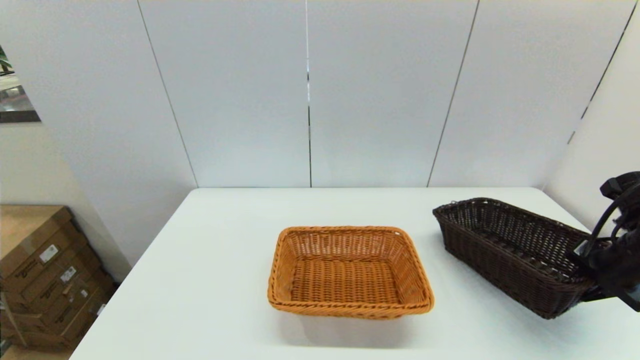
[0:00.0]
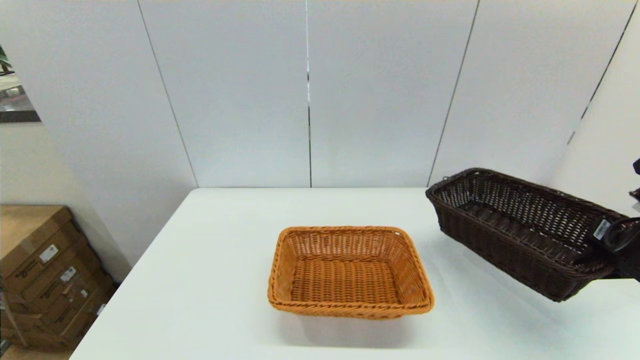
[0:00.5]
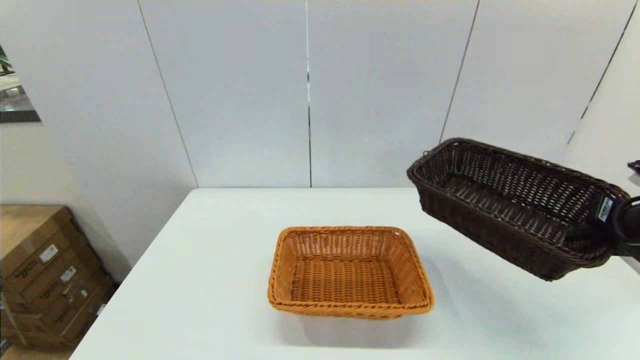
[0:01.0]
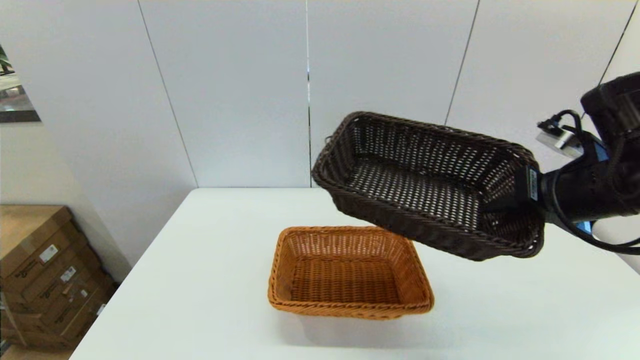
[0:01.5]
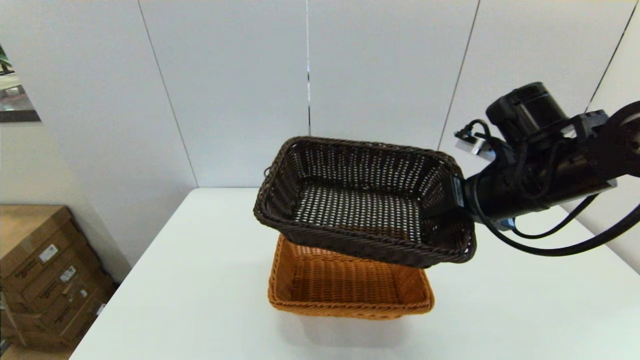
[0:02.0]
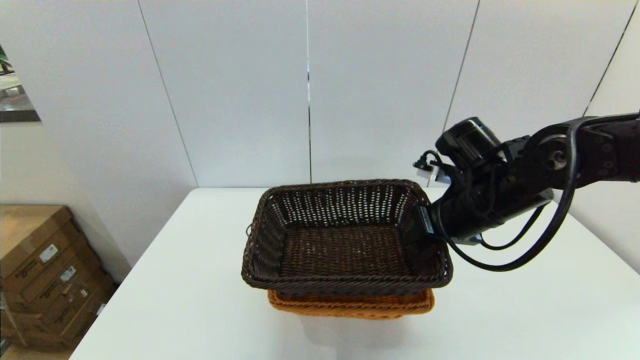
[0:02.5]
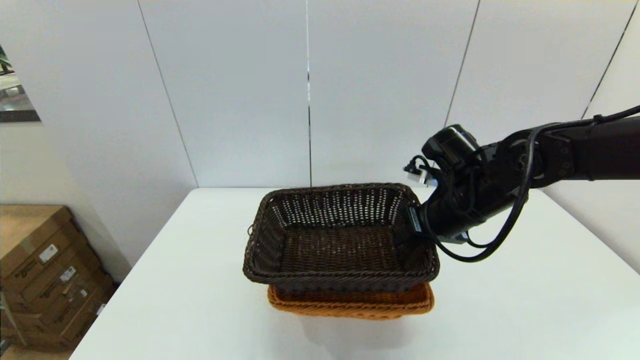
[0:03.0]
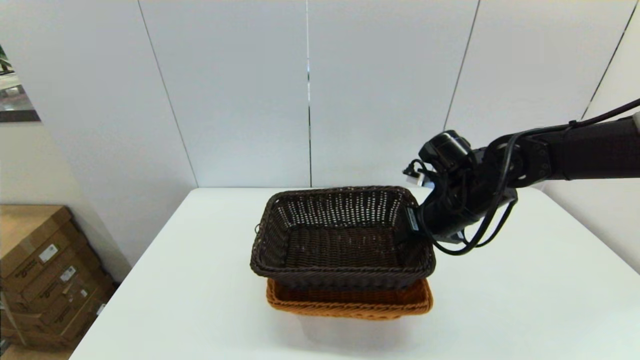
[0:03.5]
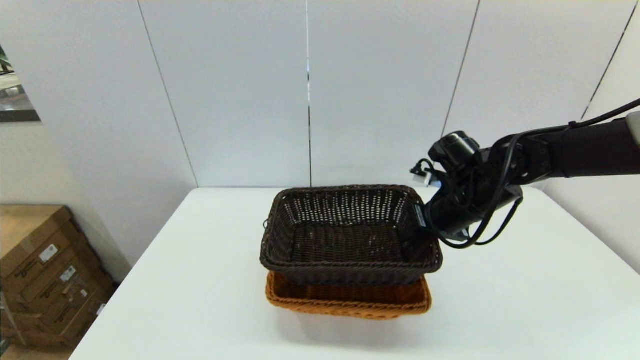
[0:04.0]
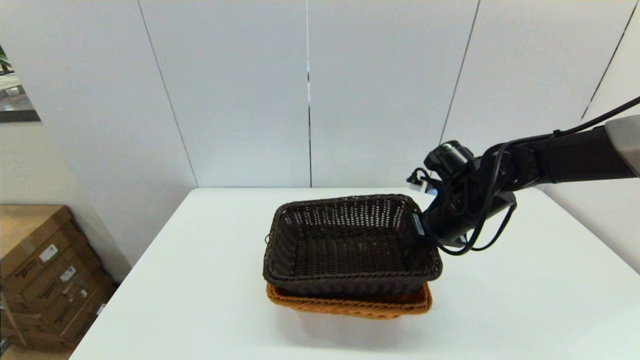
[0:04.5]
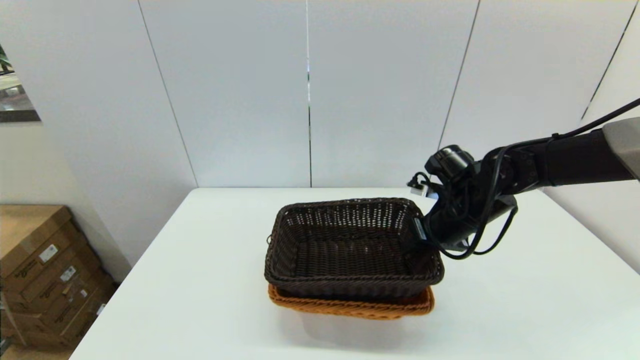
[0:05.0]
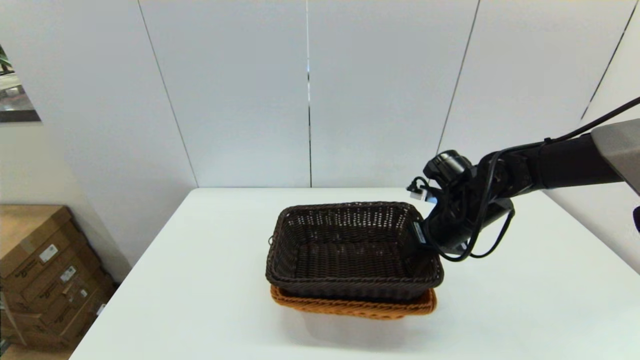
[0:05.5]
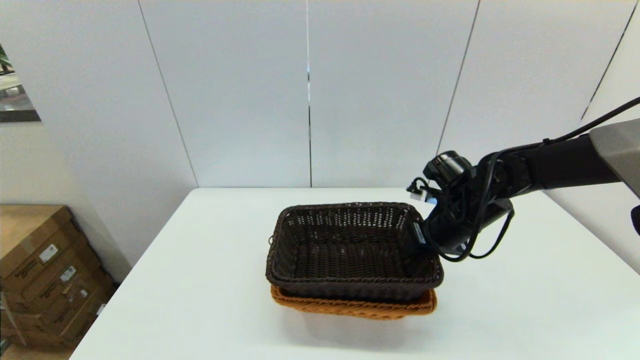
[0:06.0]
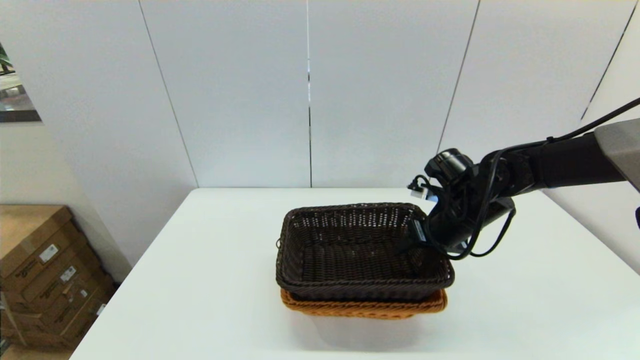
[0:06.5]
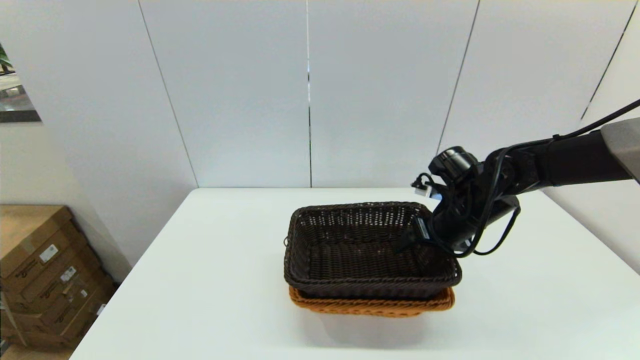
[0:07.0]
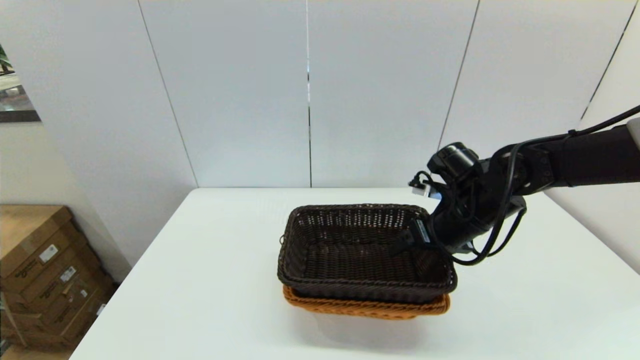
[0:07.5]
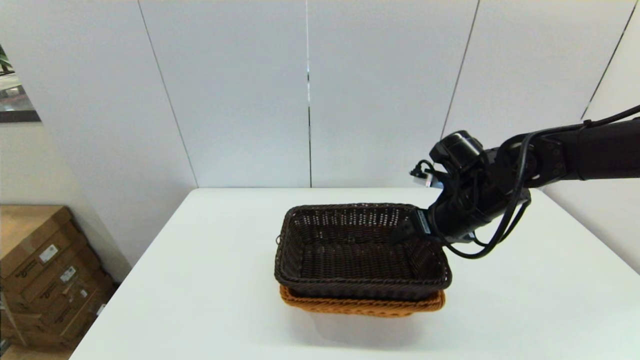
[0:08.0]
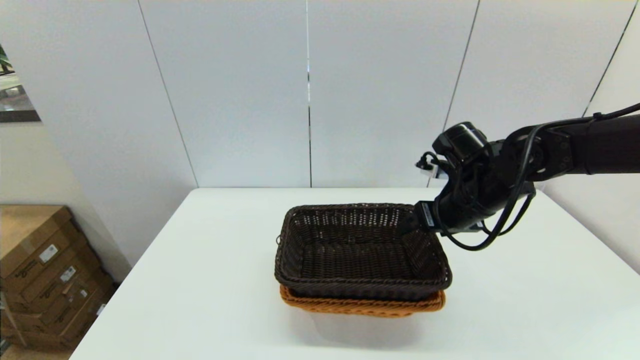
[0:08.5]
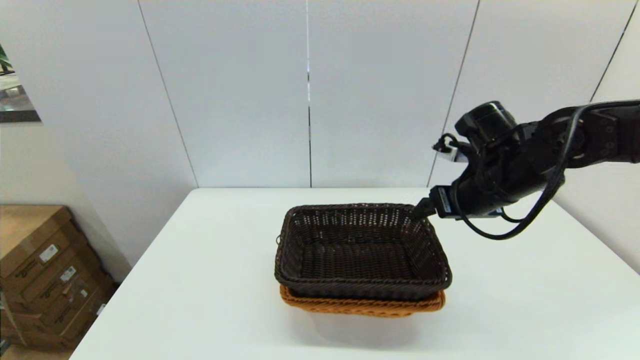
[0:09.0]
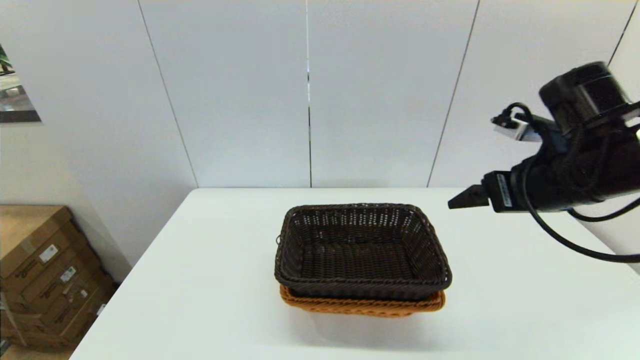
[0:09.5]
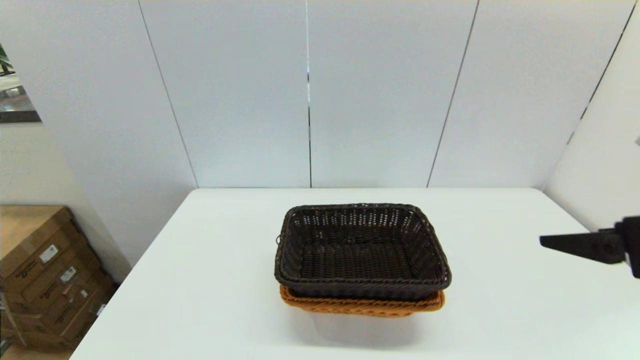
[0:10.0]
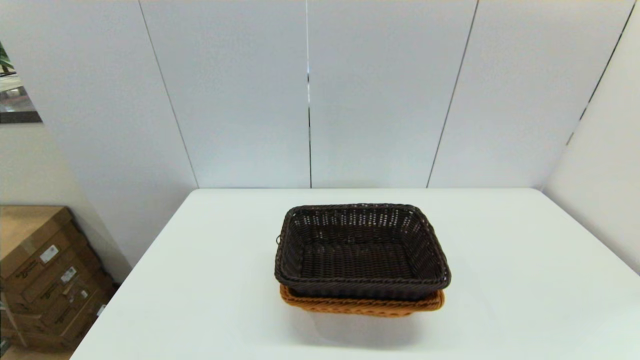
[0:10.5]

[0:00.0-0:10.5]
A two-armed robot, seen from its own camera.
Task of the whole recording: stack a basket on top of another basket.
Step, 0:00.5 to 0:08.5: Place the dark basket into the light color basket with the right gripper.
0:00.0 to 0:02.0: The right gripper is displaced to the left and upward by some 20 cm.
0:02.0 to 0:04.0: The right gripper moves downward and forward, roughly 10 cm.
0:04.0 to 0:06.5: The right gripper opens.
0:06.5 to 0:08.5: The right gripper shifts by about 5 cm, and opens.
0:08.5 to 0:10.5: The right gripper travels backward by about 30 cm.

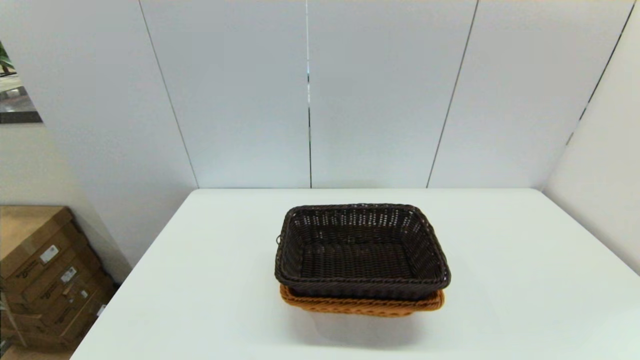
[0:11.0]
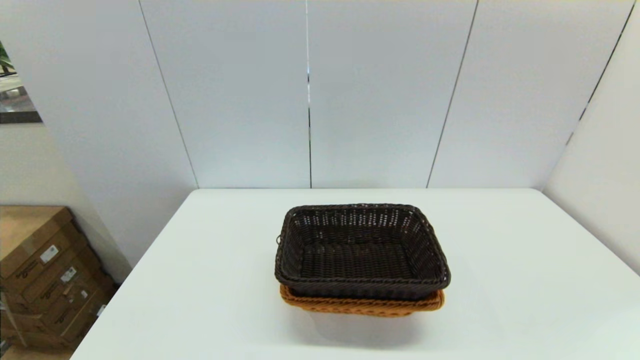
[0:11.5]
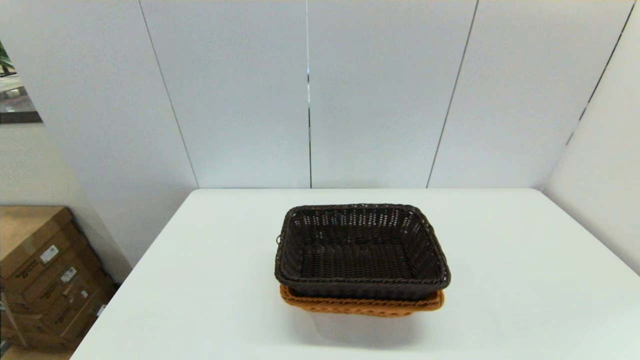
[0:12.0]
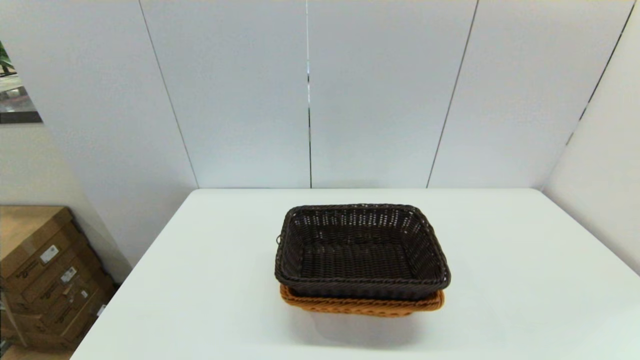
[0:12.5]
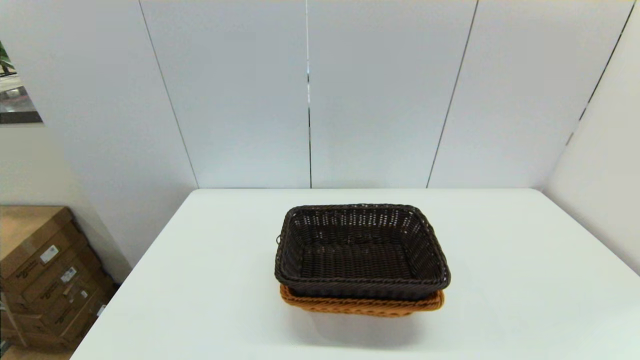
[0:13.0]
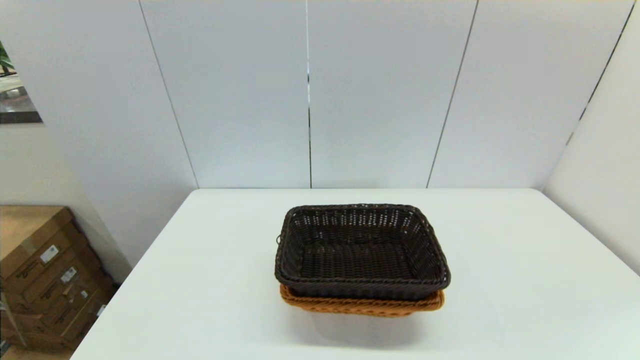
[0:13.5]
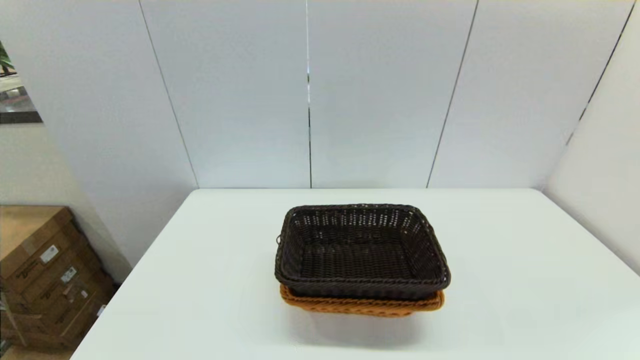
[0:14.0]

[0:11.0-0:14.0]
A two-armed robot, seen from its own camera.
Task of the whole recording: stack a basket on top of another basket.
0:12.5 to 0:14.0: Neither gripper changes place.

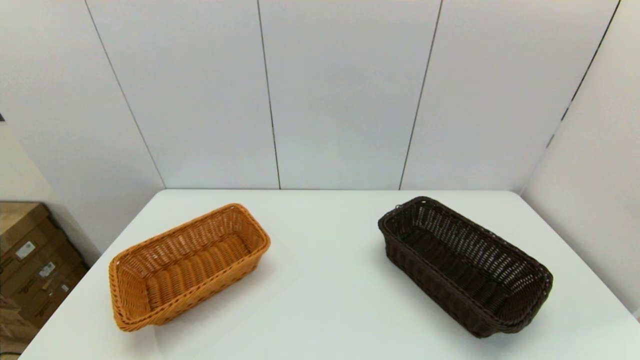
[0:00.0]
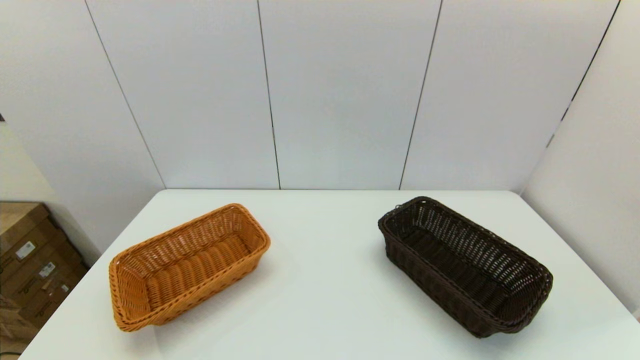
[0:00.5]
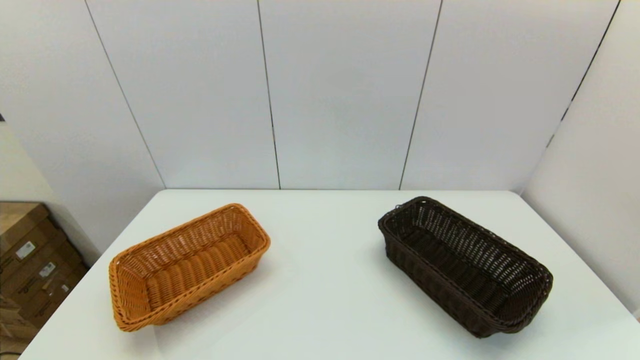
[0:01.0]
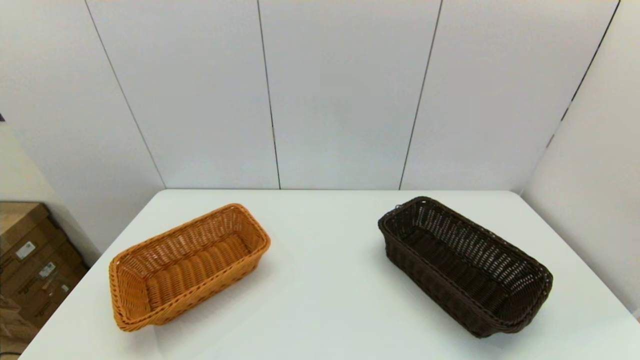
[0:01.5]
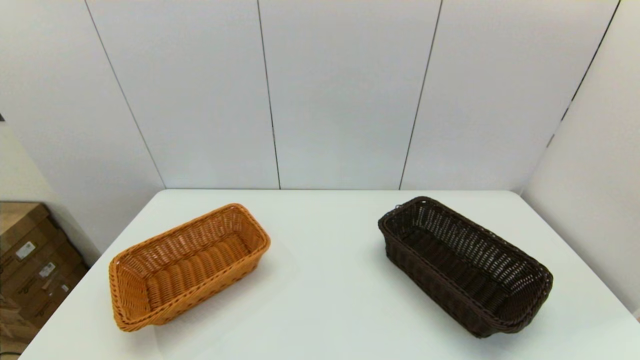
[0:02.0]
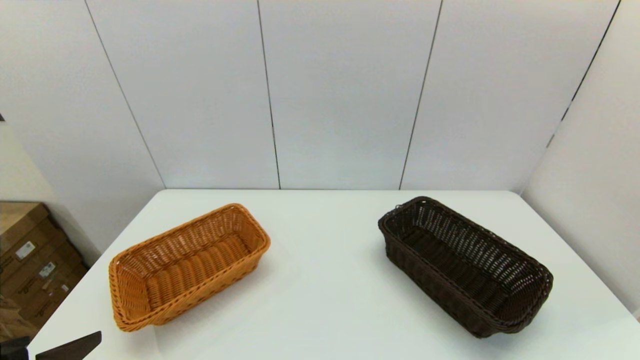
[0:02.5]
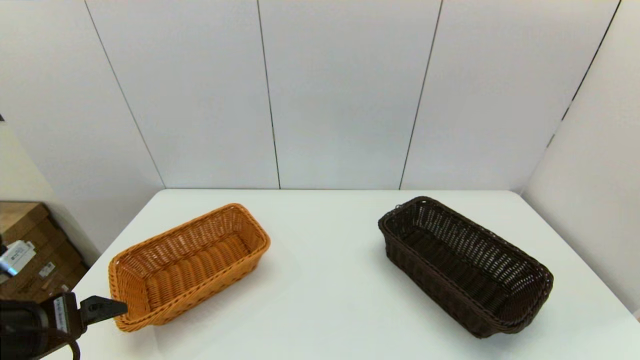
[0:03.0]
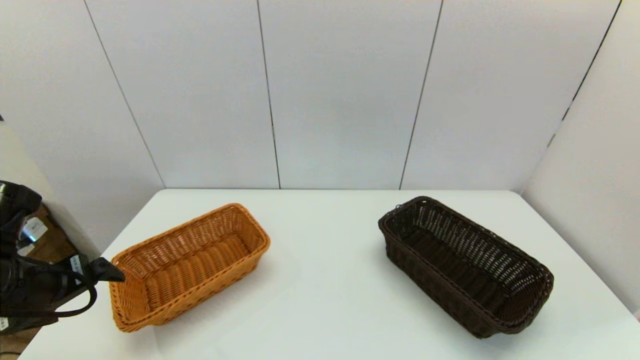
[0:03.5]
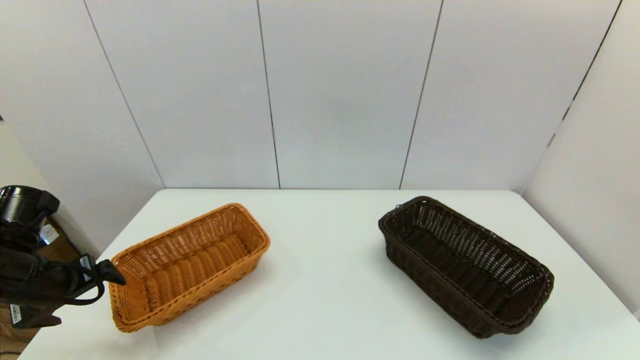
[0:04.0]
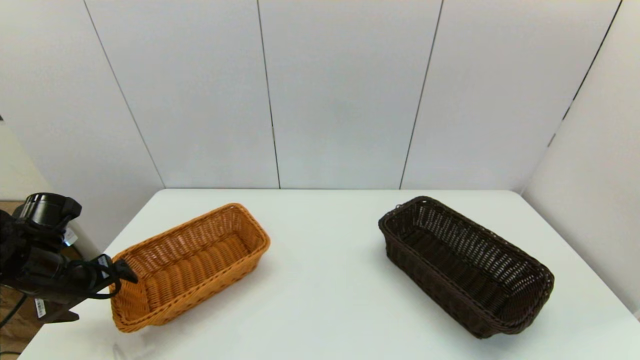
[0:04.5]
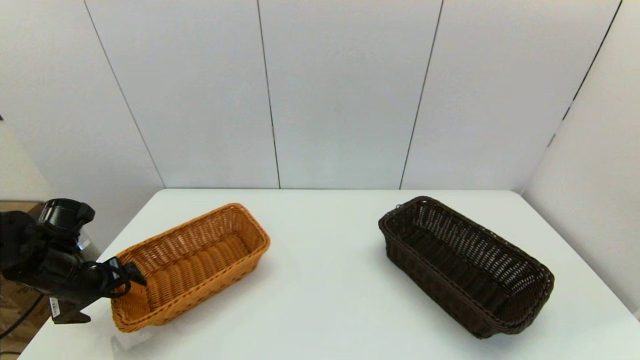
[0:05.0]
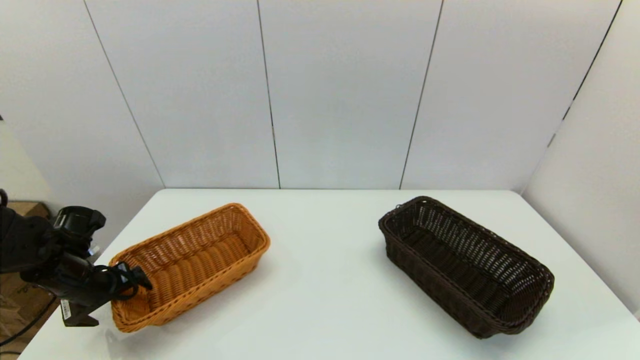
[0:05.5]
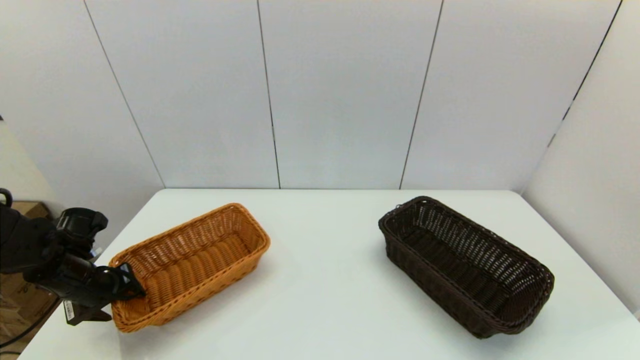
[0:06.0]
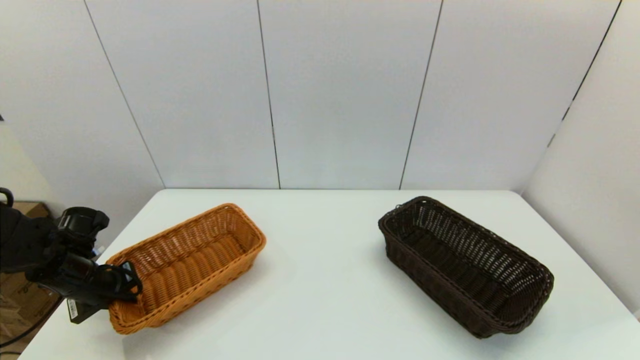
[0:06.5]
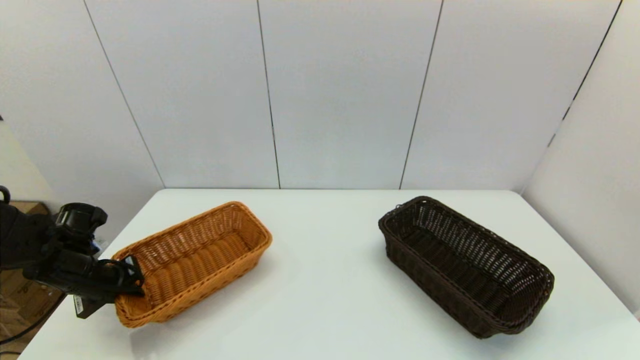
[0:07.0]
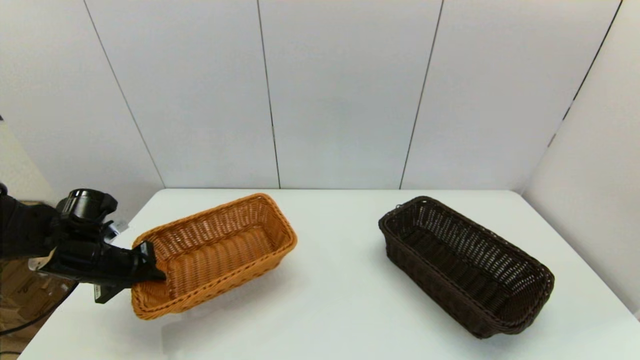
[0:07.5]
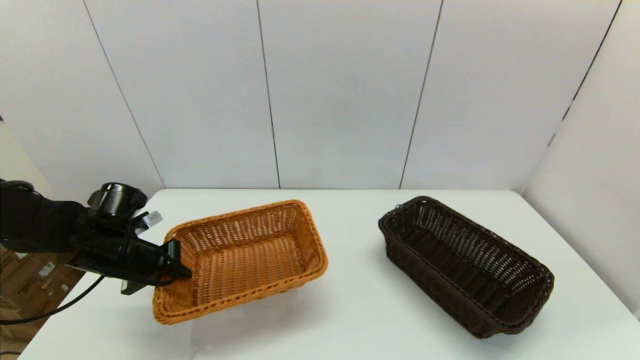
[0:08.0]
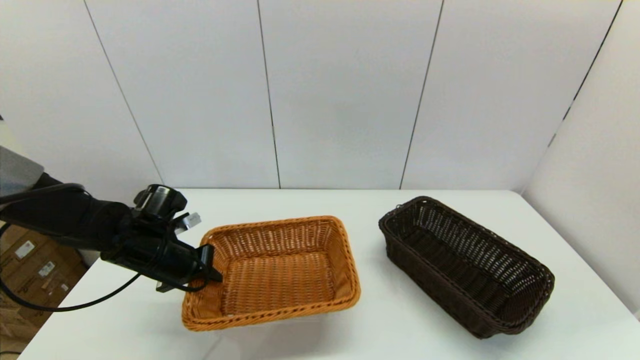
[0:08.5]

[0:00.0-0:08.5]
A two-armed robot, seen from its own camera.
Task of the whole recording: stack a basket on top of another basket.
Step, 0:02.5 to 0:06.5: Grasp the light basket with the left gripper.
0:02.0 to 0:04.0: The left gripper travels forward by approximately 25 cm.
0:04.0 to 0:06.5: The left gripper shifts about 10 cm downward and forward, and closes its fingers.
0:06.5 to 0:08.5: The left gripper moves to the right, about 10 cm.
